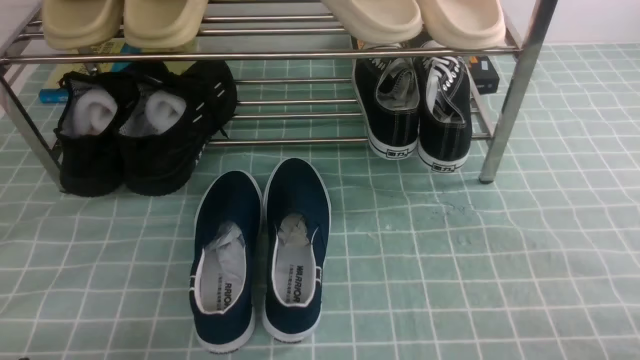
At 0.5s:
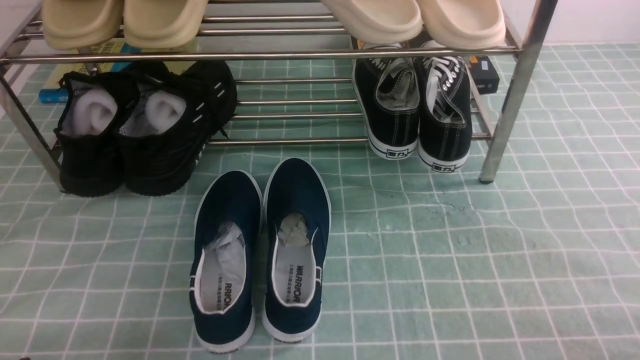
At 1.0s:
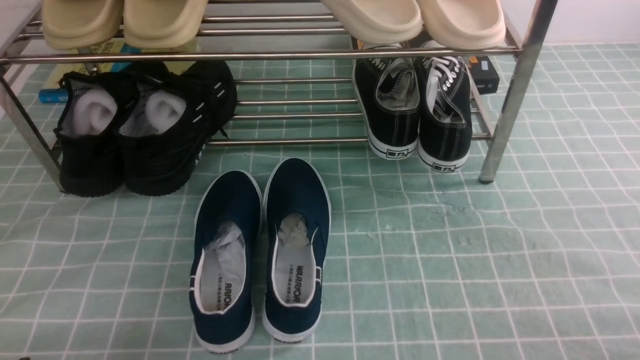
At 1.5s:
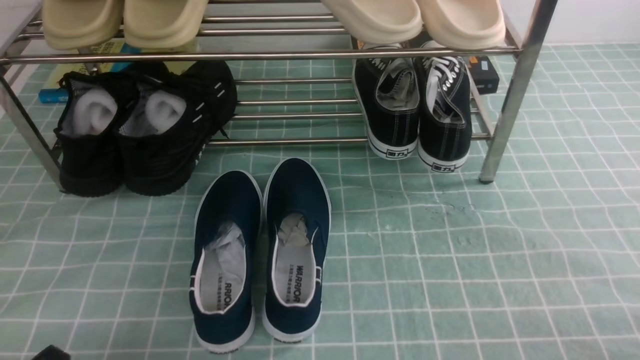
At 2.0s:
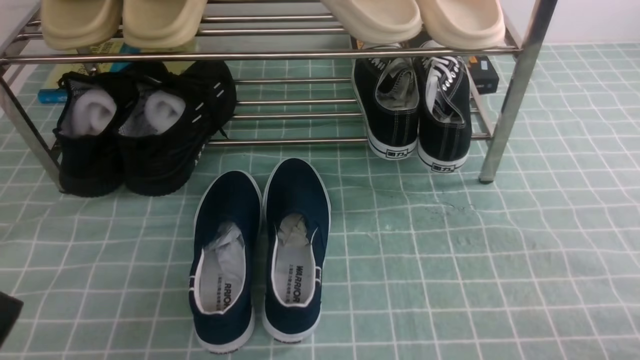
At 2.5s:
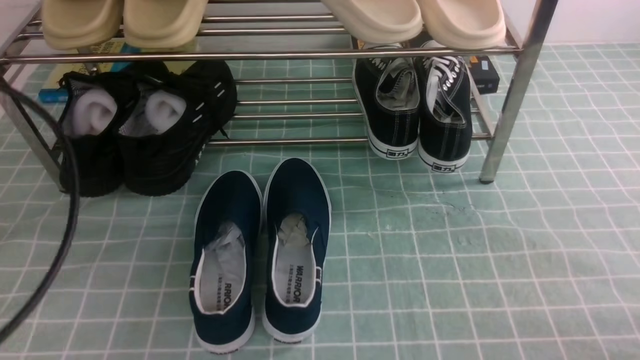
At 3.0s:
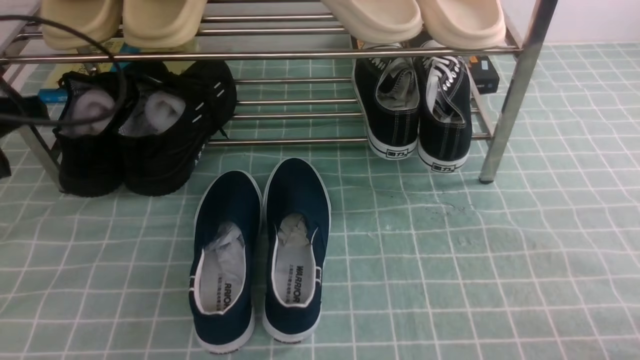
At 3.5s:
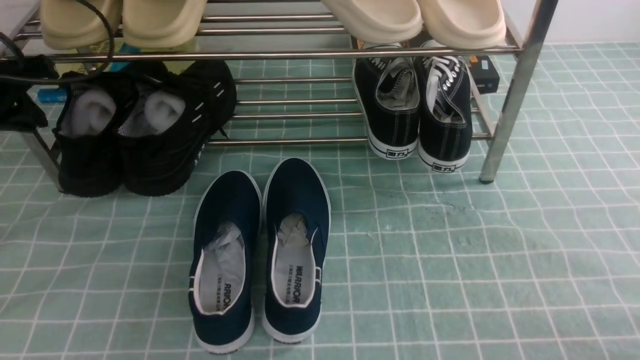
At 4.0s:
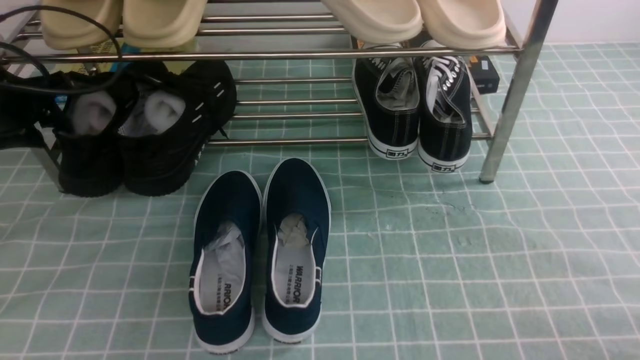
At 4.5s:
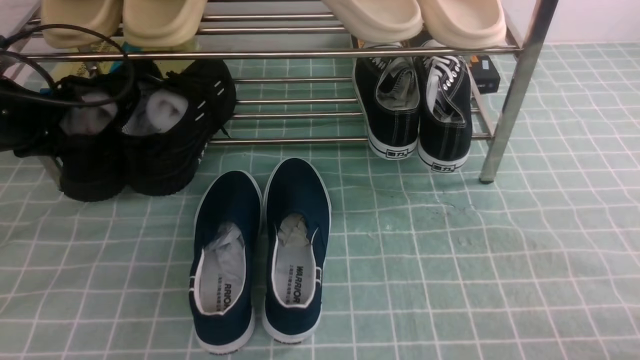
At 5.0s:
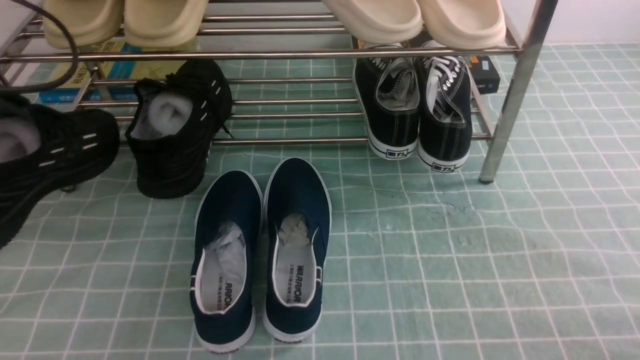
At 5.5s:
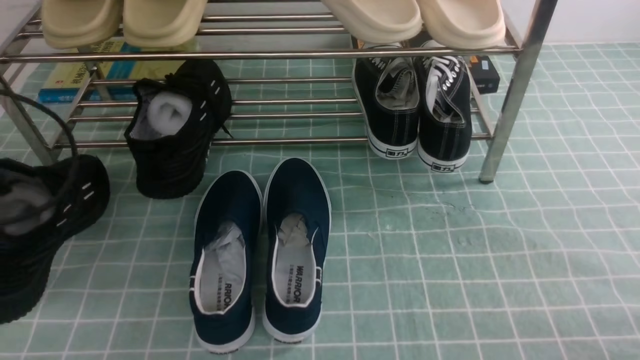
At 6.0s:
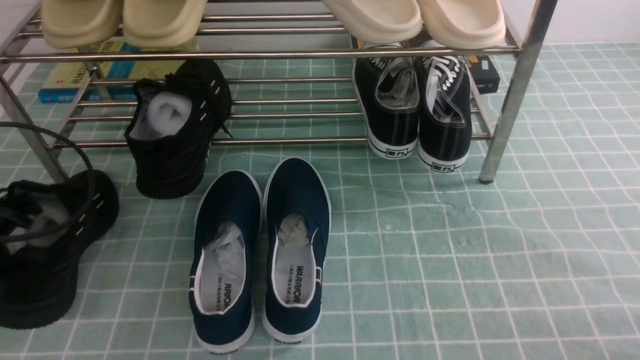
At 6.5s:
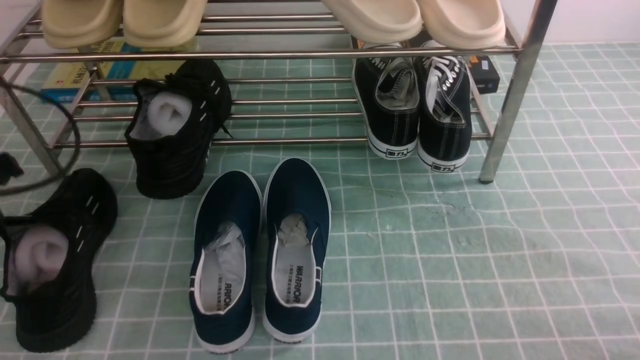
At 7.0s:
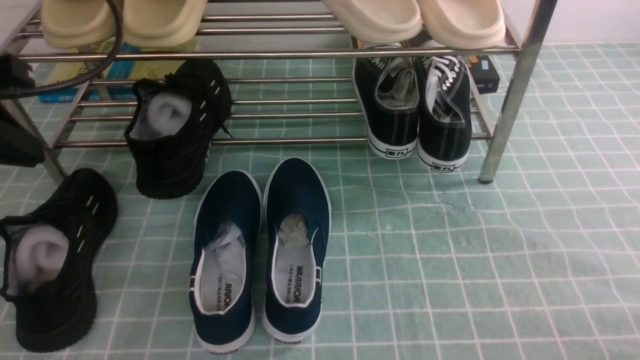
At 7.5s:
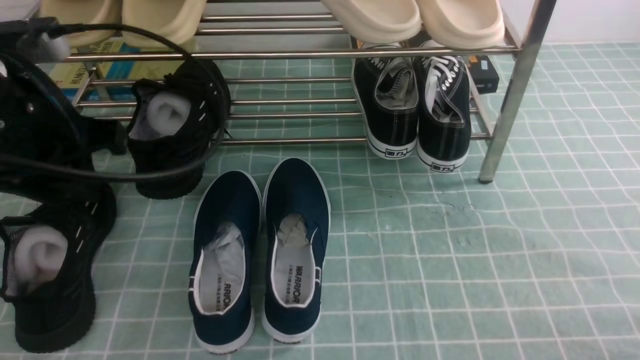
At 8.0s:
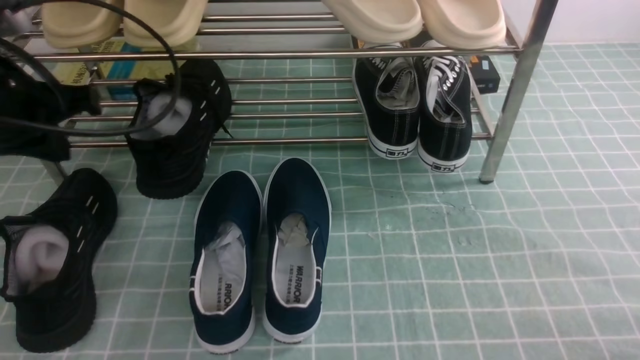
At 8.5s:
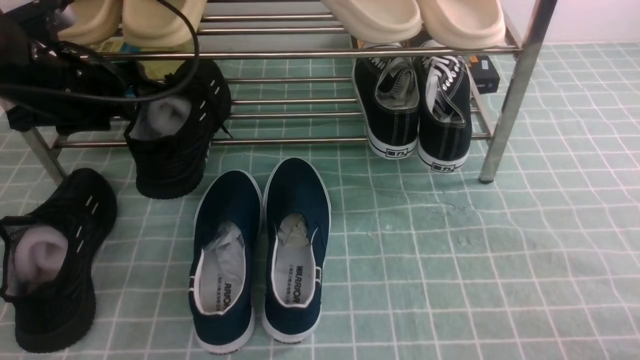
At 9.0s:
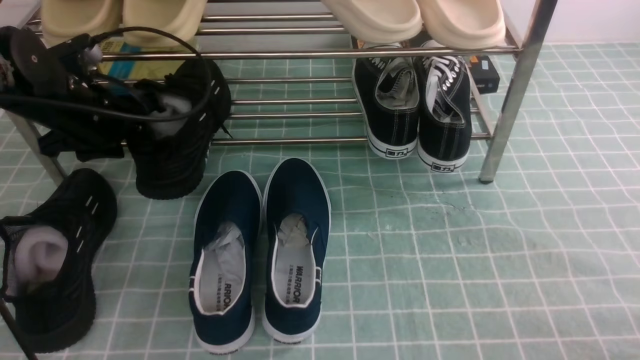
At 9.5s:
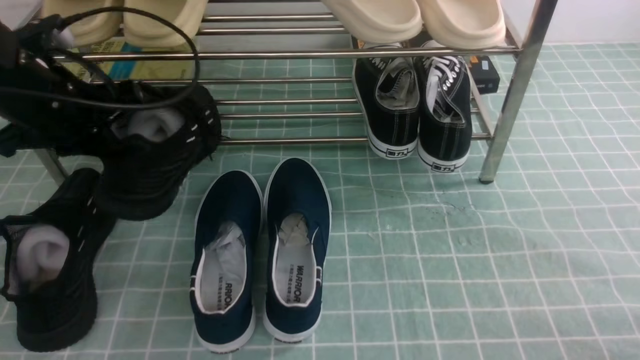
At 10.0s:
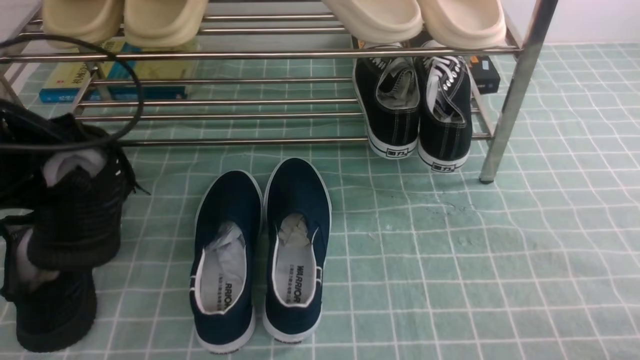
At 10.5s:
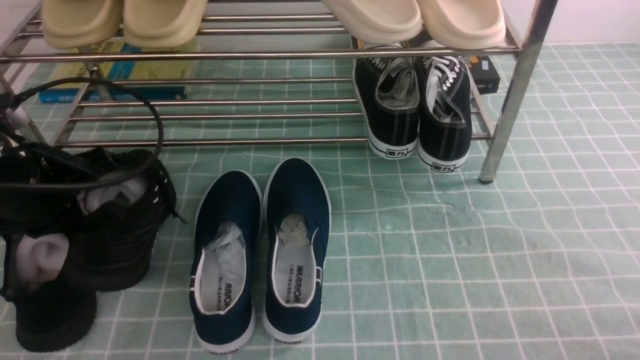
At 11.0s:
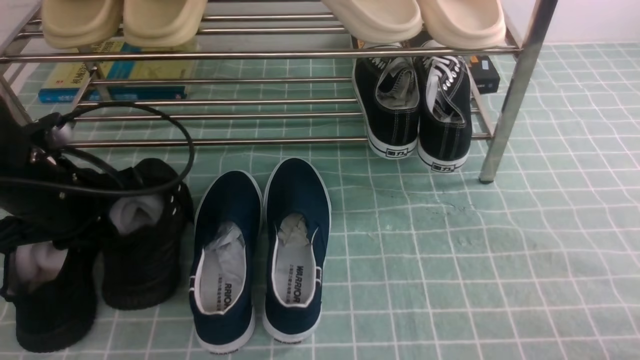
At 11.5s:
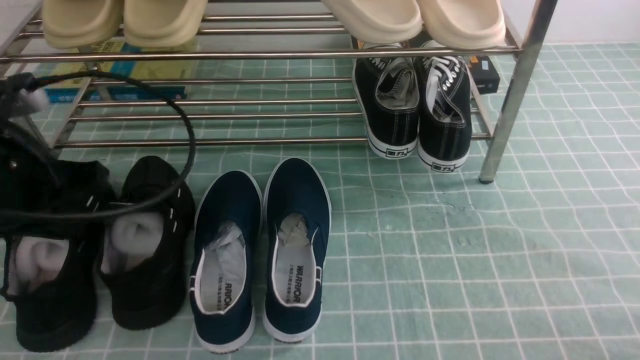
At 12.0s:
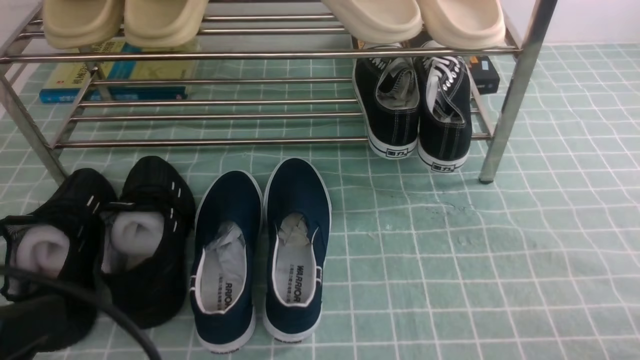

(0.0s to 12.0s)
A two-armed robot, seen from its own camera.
Step, 0.0s - 4.0s: use the left arm to clamp a shoe on the left side of the shoe rack.
Step, 5.0s - 6.0s: Use your left arm to remove the clamped shoe from the shoe rack and put it down.
Step, 7.0s - 9.0s: use the left arm to clamp a shoe on the left side of the shoe rack.
Step, 9.5s - 11.5s: Use your left arm to remove the clamped shoe from the shoe rack and put it down.
2.0s - 4.0s: The left gripper heads forward, covering approximately 35 cm, and opens.
4.0s - 6.0s: The left gripper goes some 15 cm backward, and closes up.
6.0s - 8.0s: The left gripper moves upward, to the right and forward, some 15 cm, and opens, then closes again.
8.0s - 10.0s: The left gripper travels forward and back again, approximately 10 cm each way, and opens, then closes once more.
10.0s - 12.0s: The left gripper shifts approximately 20 cm backward.

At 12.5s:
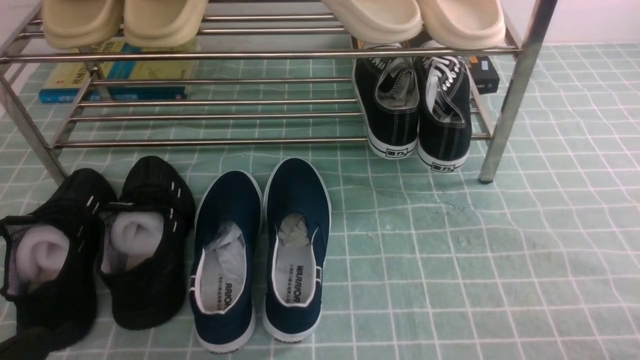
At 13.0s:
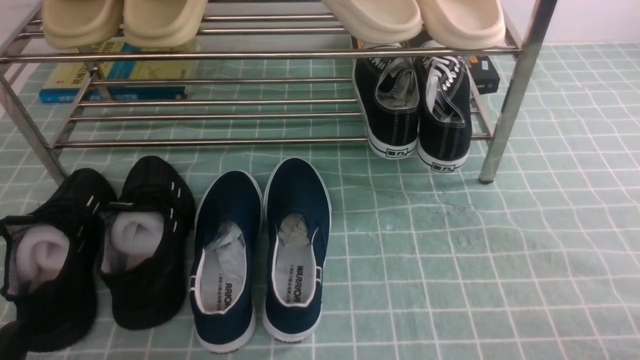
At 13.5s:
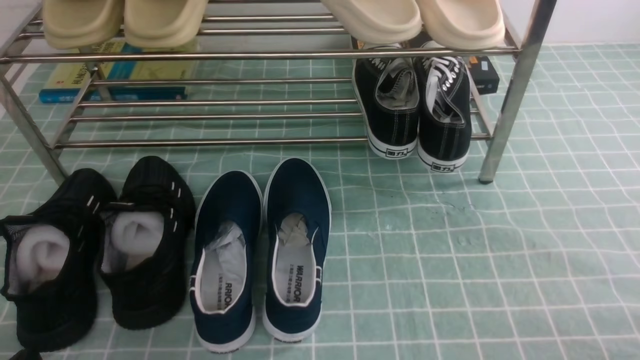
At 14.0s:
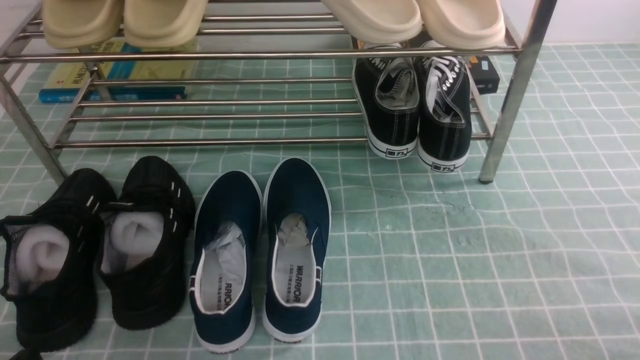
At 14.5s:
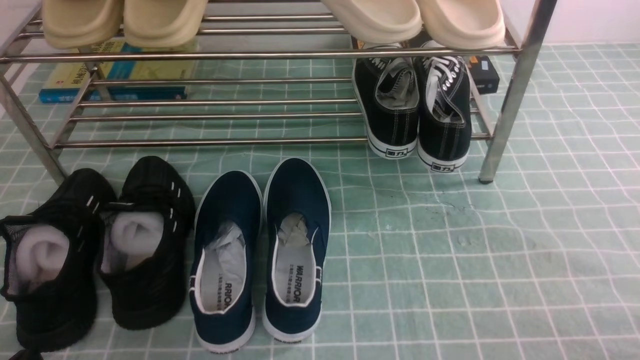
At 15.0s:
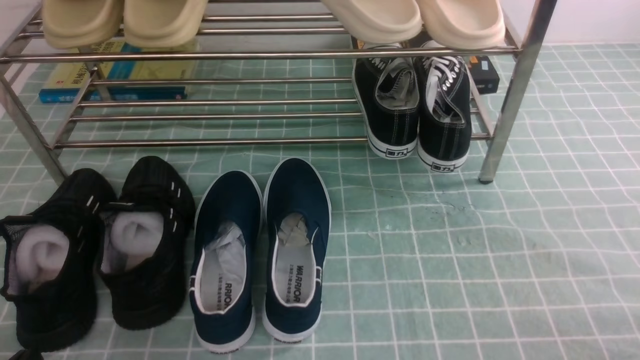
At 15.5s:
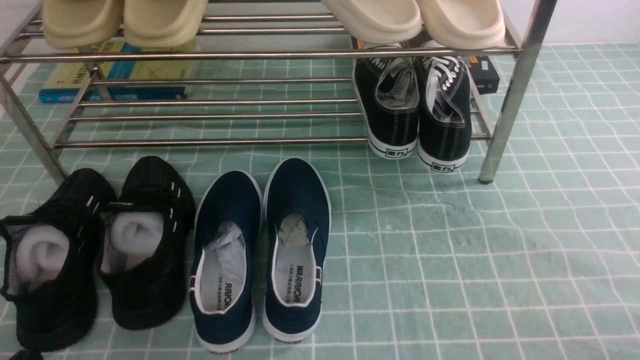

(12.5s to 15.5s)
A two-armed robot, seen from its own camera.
14.0s - 15.5s: Both grippers stay put.

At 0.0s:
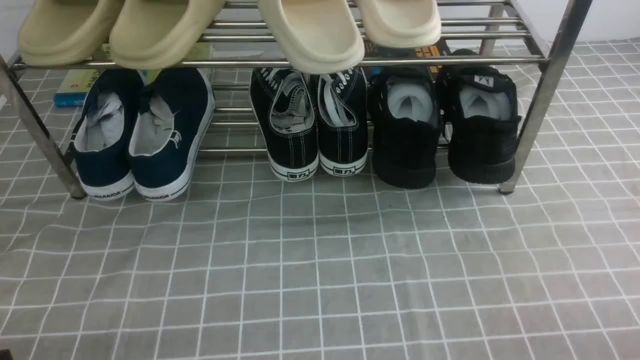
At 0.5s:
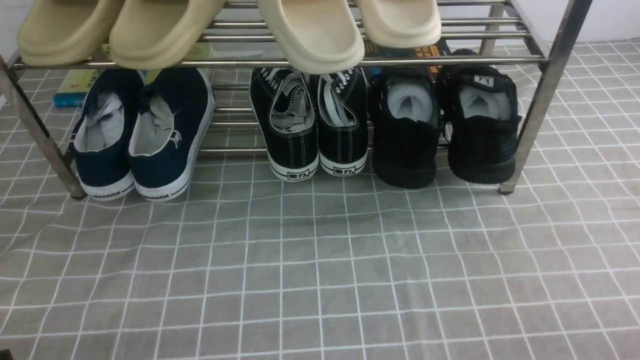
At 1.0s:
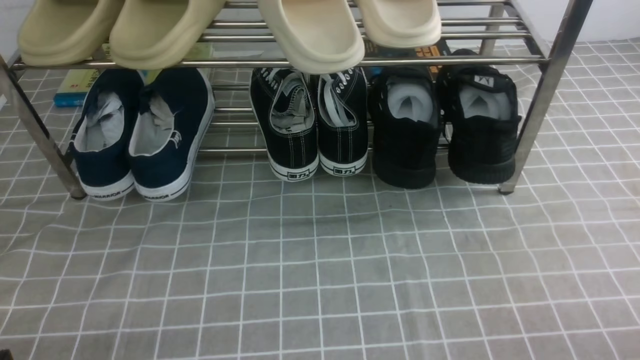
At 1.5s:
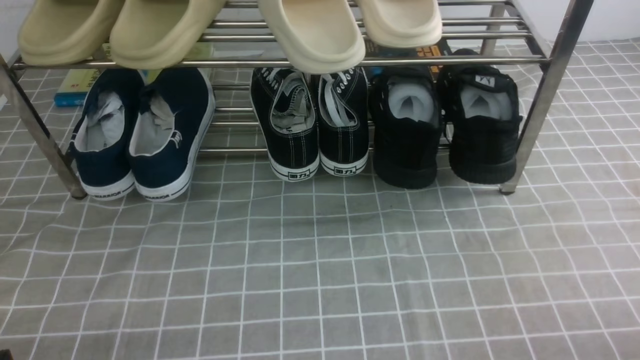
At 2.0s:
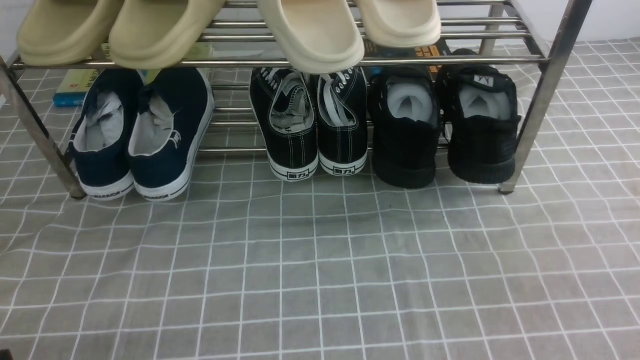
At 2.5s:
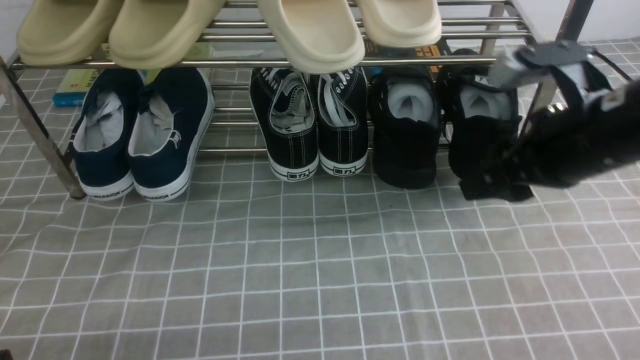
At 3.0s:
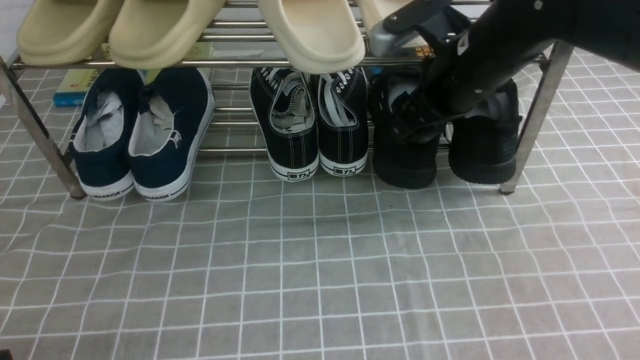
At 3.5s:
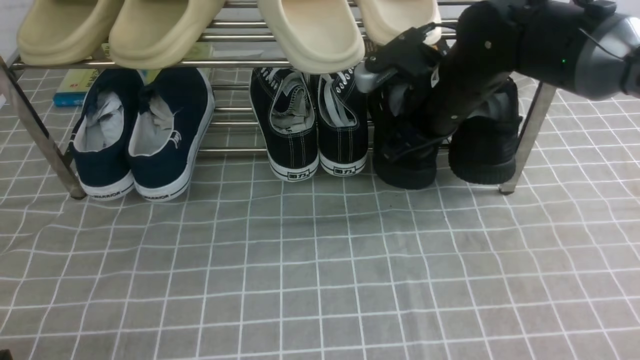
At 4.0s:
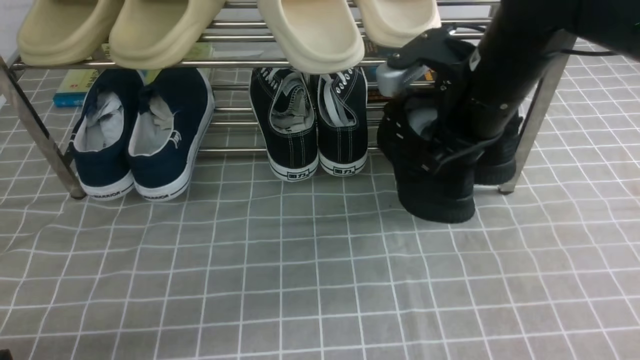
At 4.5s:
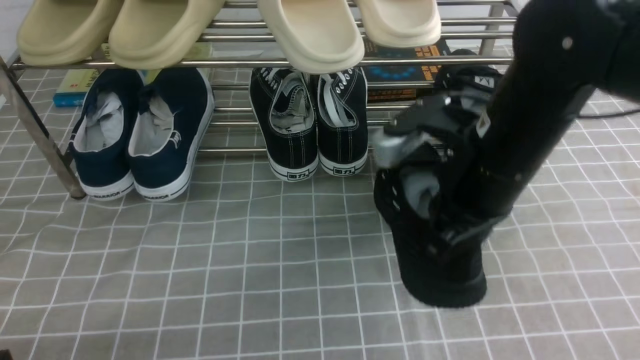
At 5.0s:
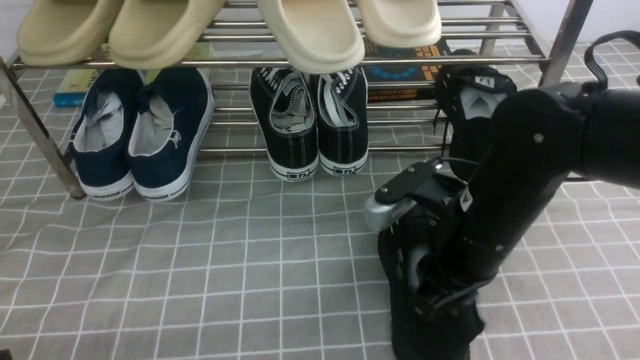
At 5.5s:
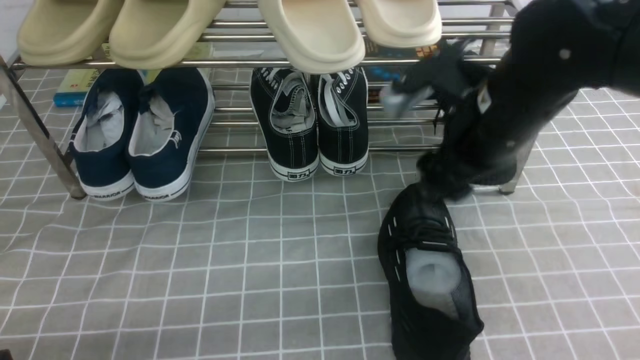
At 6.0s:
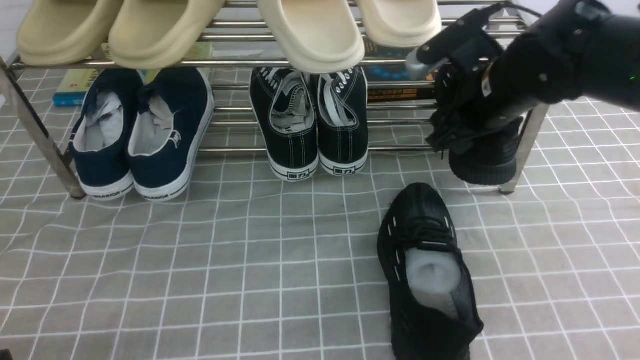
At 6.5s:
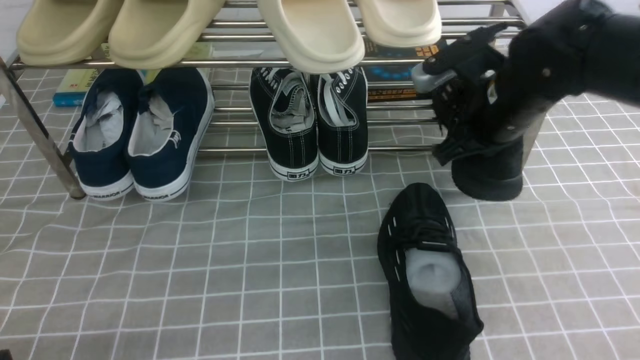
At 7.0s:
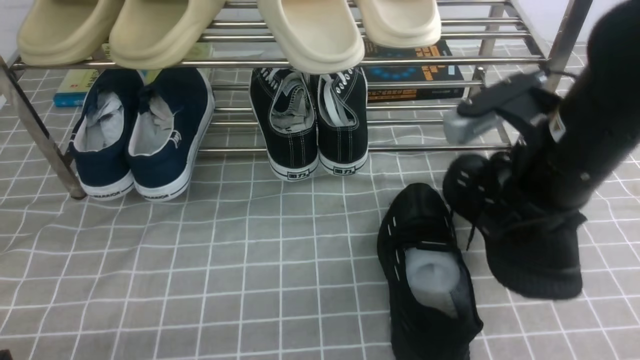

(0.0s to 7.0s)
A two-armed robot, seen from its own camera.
Step, 0.0s - 3.5s: use the right arm to clamp a shoe on the right side of the shoe rack.
Step, 4.0s - 5.0s: use the right arm to take out the clamped shoe from the shoe rack and put it down.
Step, 5.5s - 6.5s: use the right arm to clamp a shoe on the right side of the shoe rack.
2.0s - 3.5s: The right gripper goes approximately 30 cm forward and to the left, and opens, then closes again.
3.5s - 5.0s: The right gripper shifts approximately 15 cm backward.
5.0s - 7.0s: The right gripper is displaced to the right and upward by approximately 10 cm, reaches approximately 15 cm forward, then returns, and closes its fingers.
